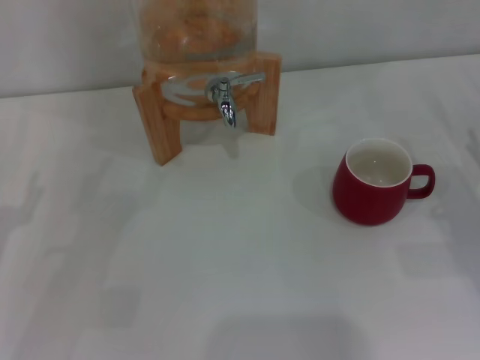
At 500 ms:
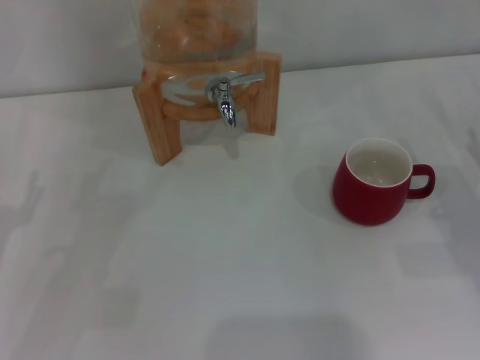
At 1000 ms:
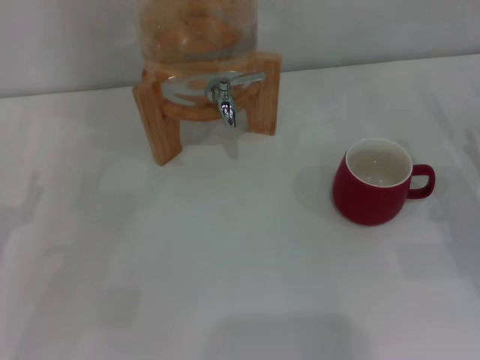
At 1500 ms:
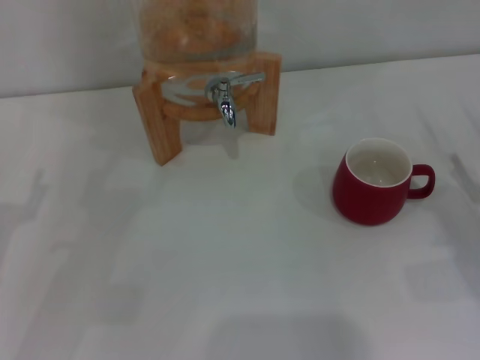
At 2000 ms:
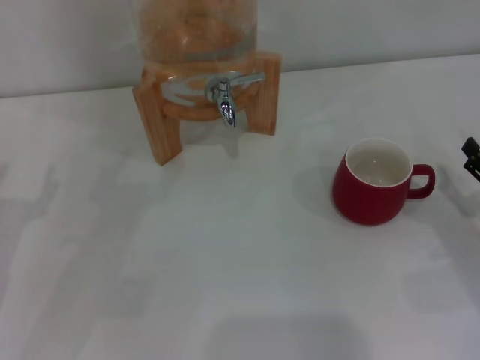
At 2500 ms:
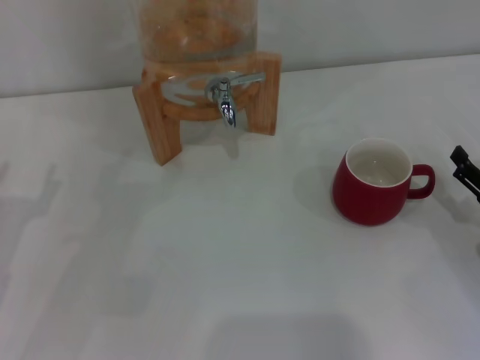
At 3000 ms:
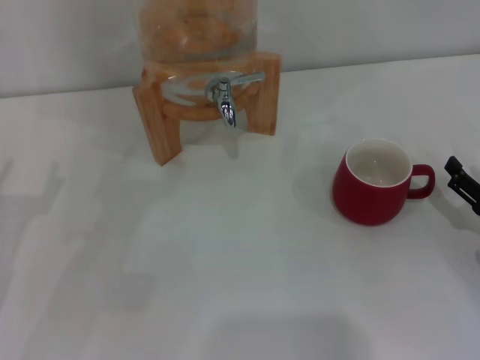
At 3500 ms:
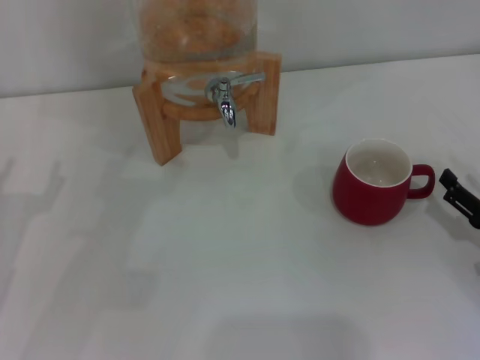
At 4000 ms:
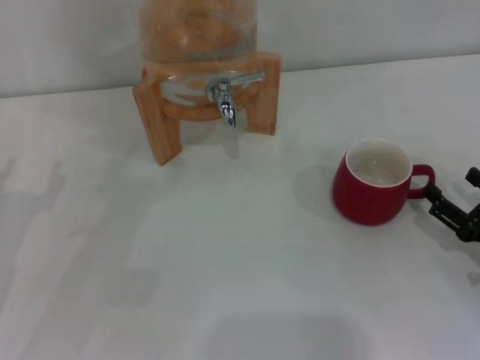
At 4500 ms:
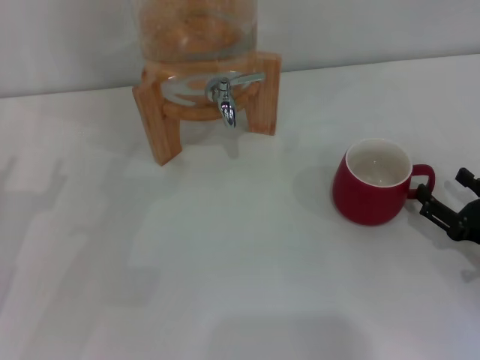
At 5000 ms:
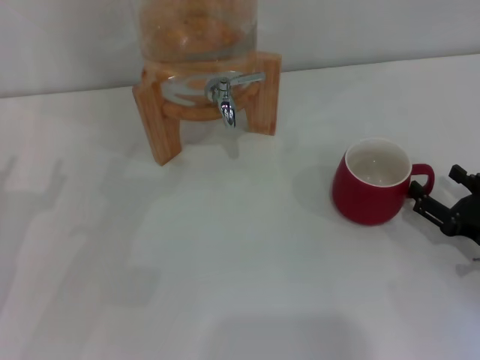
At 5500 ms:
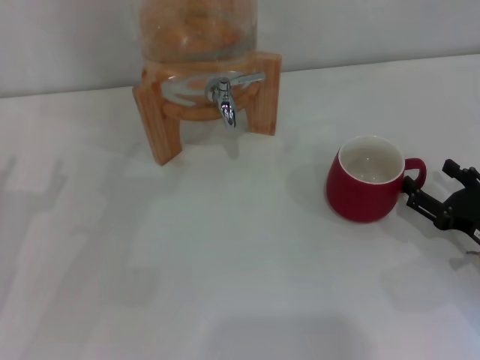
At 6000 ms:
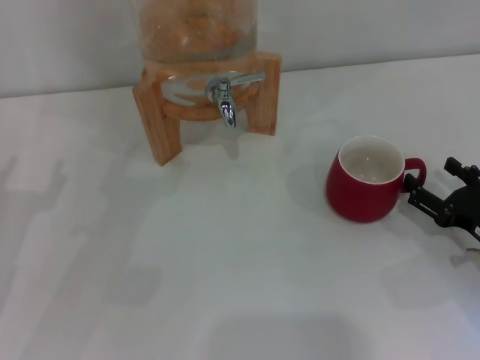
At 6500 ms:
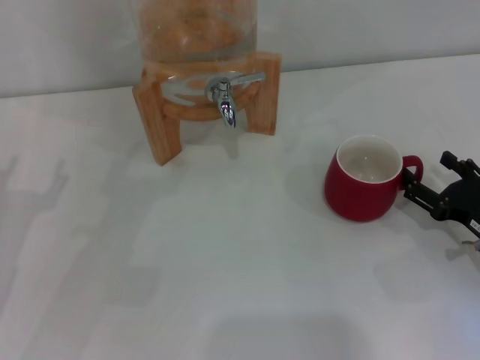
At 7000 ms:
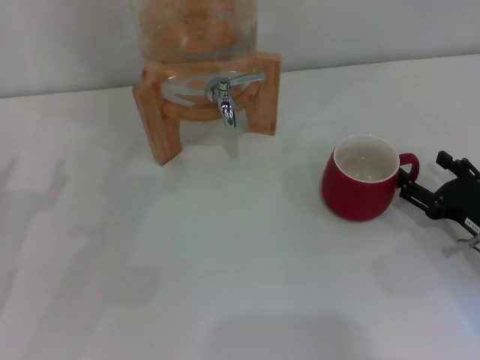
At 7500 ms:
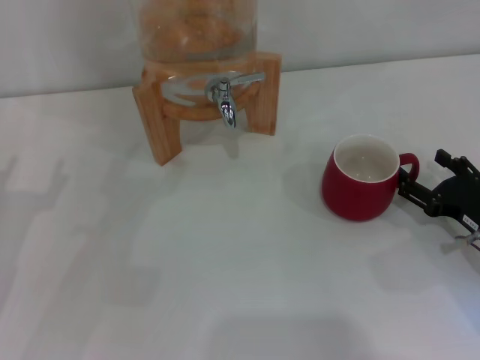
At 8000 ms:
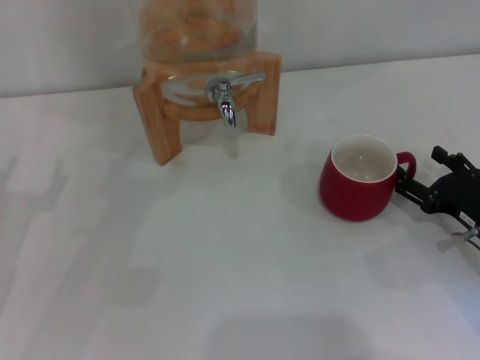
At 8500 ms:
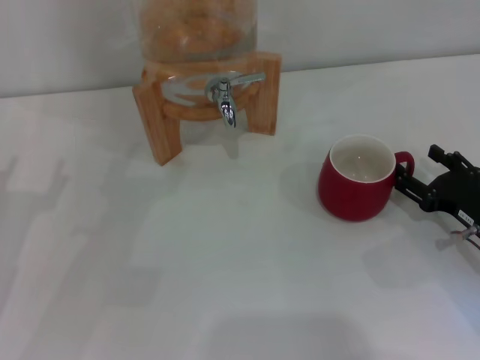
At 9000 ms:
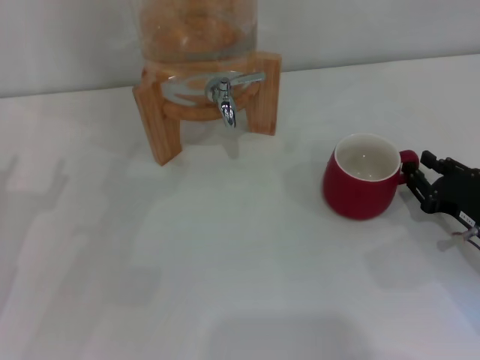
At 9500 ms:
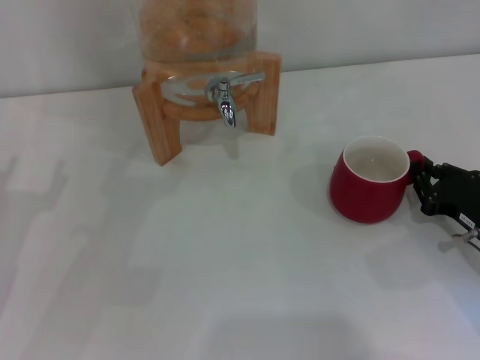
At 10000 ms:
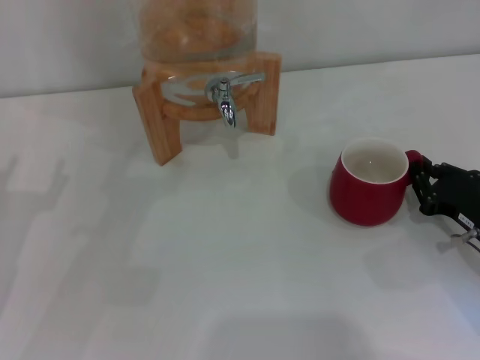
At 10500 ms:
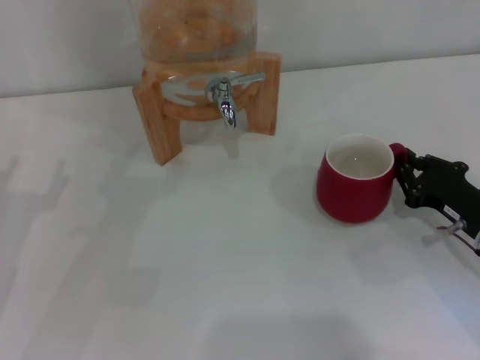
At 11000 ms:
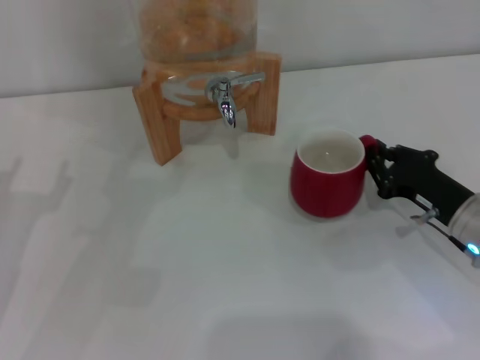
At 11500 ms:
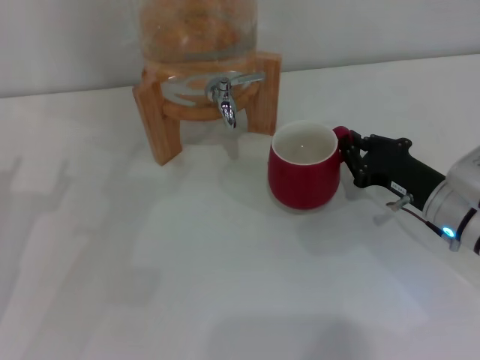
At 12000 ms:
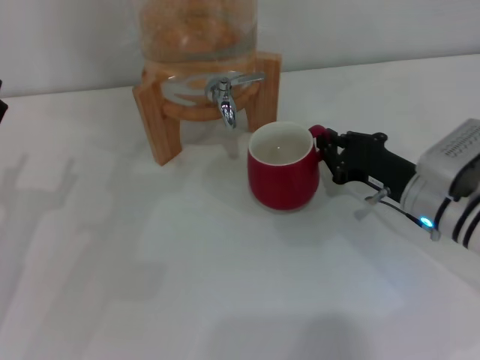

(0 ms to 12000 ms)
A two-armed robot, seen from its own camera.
Task of the whole recording: the right gripper pick up the red cup and place it horizontally under the faucet, the left gripper turn on the faucet to fill the cup, and then turn off the faucet.
2000 ms - 8000 ms: The grippers stay close to where they were, moving slightly.
8000 ms - 10000 ms: The right gripper closes.
10000 ms - 12000 ms: The right gripper is displaced to the left and forward by approximately 10 cm.

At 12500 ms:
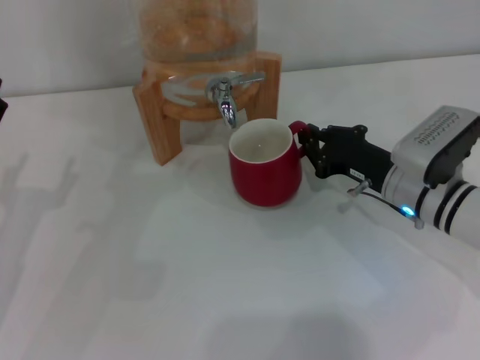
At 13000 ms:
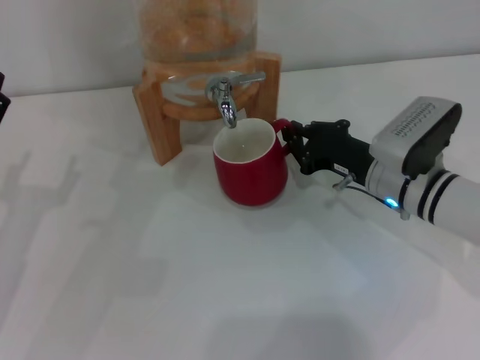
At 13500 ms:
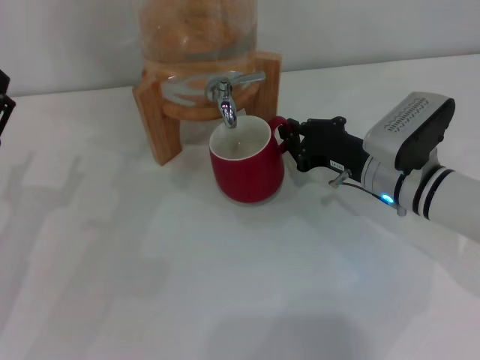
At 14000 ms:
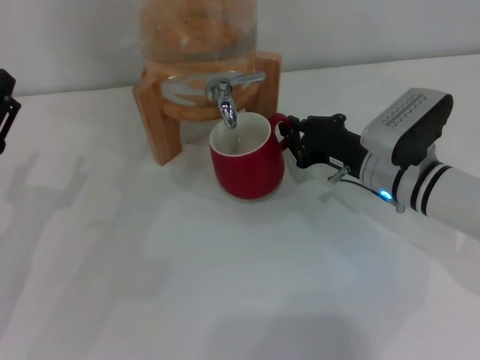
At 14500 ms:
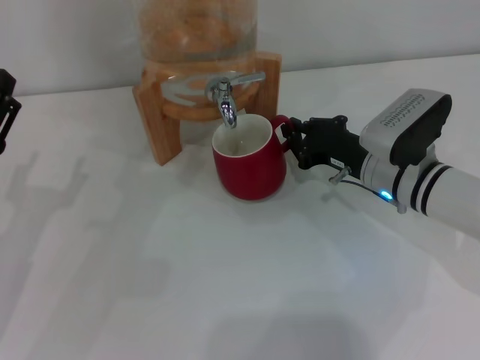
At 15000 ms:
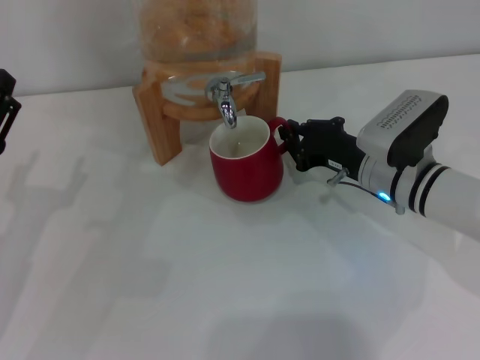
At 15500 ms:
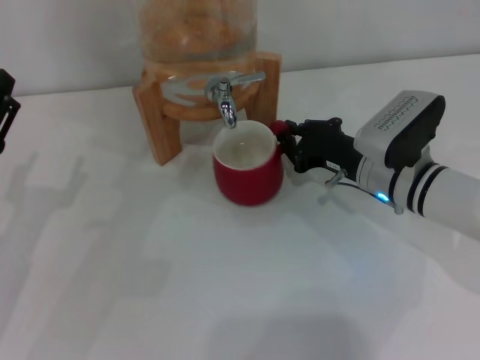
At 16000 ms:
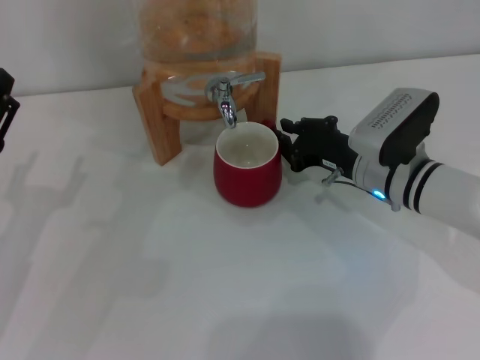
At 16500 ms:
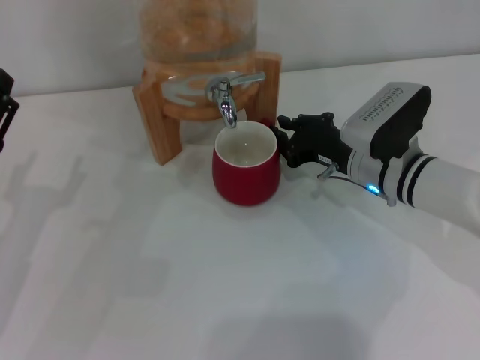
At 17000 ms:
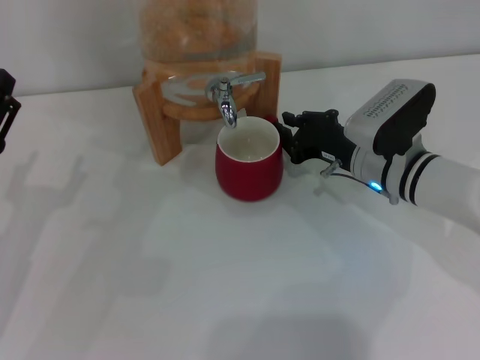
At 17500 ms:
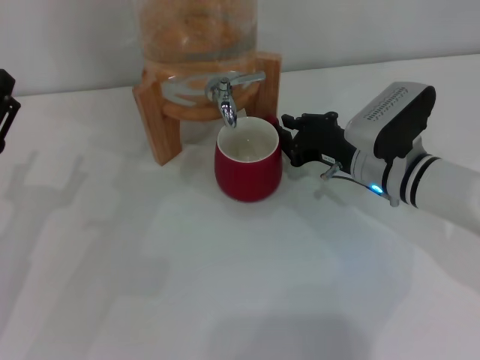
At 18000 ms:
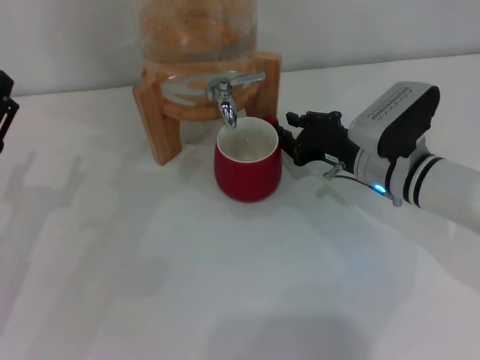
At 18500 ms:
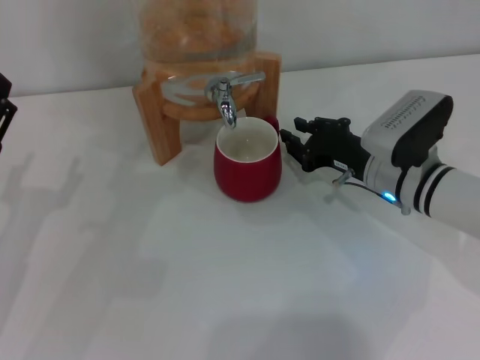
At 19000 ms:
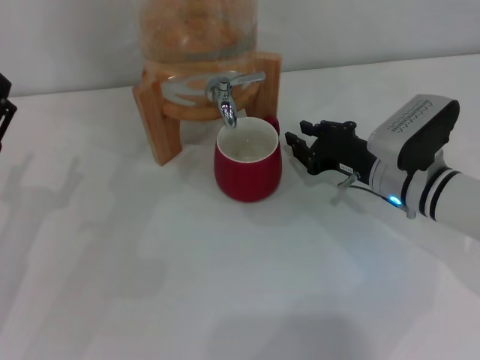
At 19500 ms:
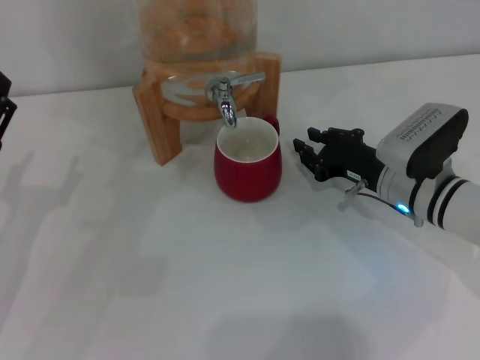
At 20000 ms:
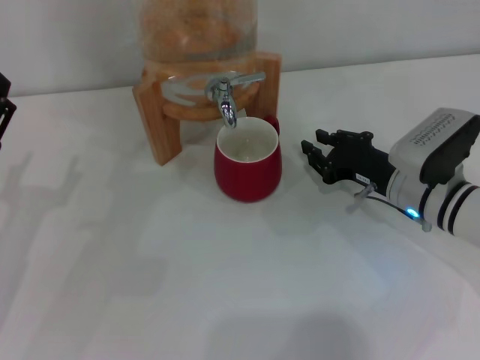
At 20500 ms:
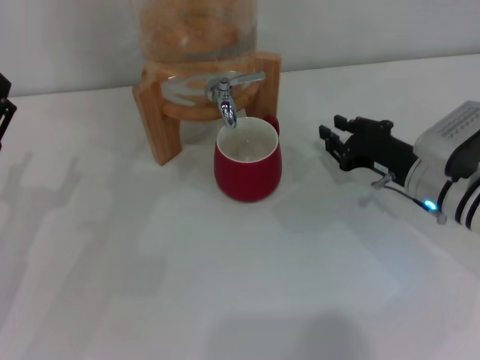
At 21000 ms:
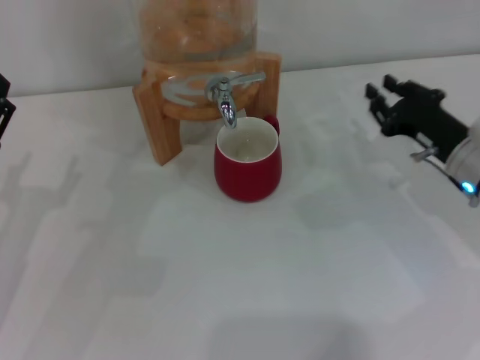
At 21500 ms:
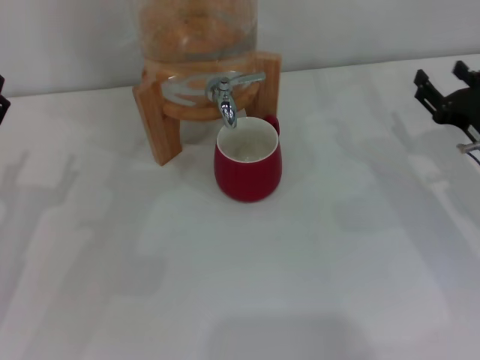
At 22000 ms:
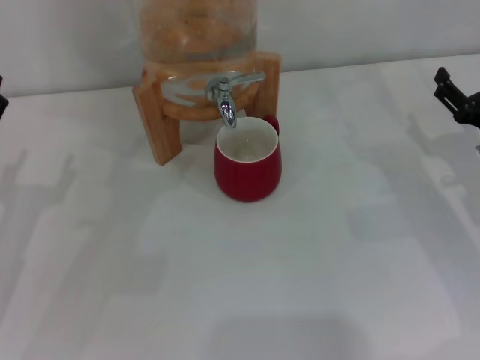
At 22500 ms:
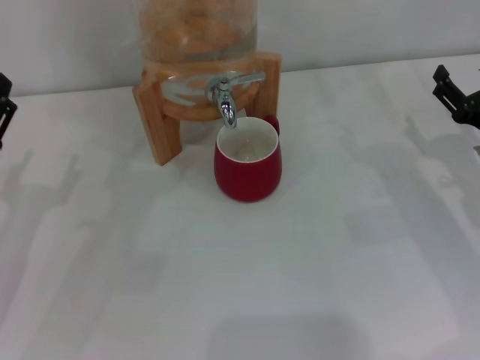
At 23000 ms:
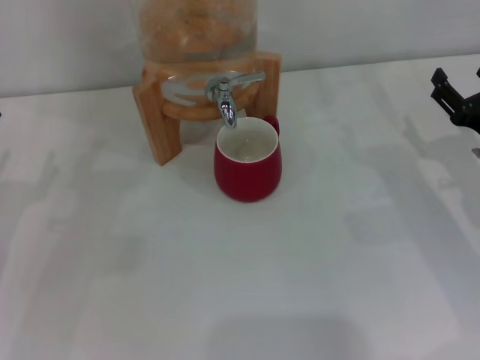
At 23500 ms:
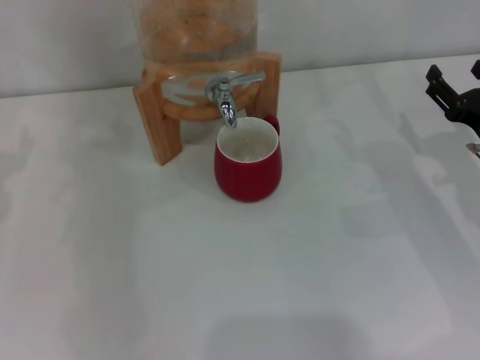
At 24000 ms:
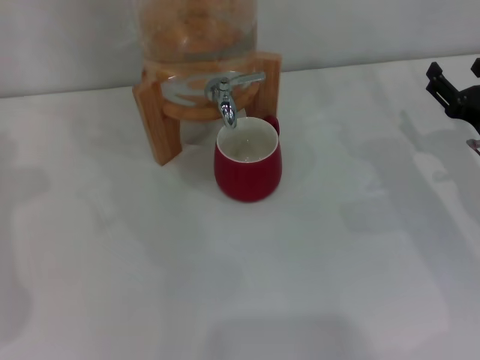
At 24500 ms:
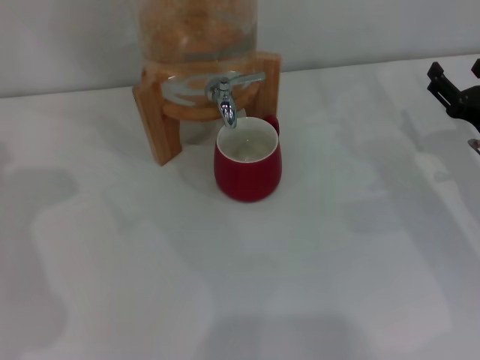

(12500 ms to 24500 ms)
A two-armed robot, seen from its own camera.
Task of the whole recording: the right gripper pick up the red cup and place it horizontally under the faucet, the left gripper turn on the faucet to fill the cup, and then turn off the faucet.
Step, 12500 ms - 20000 ms: Move the cup beneath the water dispenser nozzle with the right gripper.
12500 ms - 20500 ms: There are only small adjustments of the grippers.
20500 ms - 22500 ms: The right gripper is displaced to the right by some 10 cm, and opens its fingers.

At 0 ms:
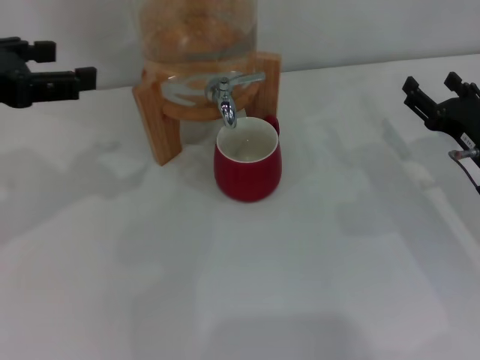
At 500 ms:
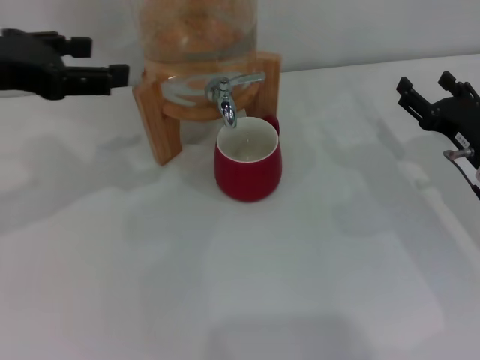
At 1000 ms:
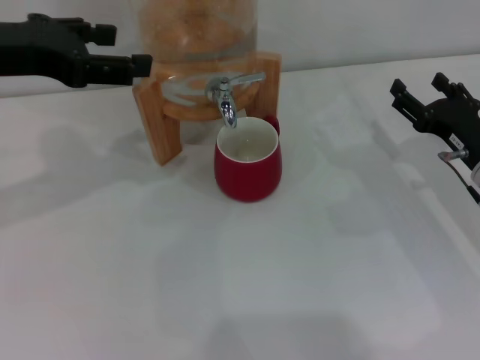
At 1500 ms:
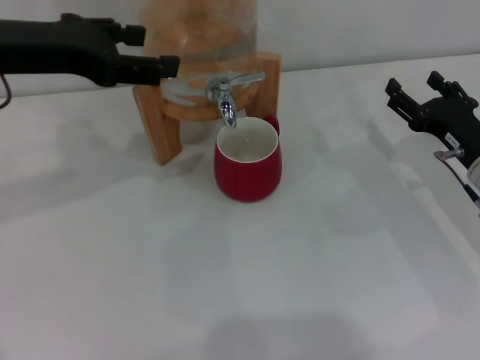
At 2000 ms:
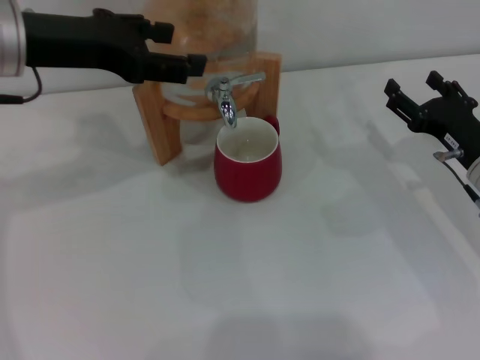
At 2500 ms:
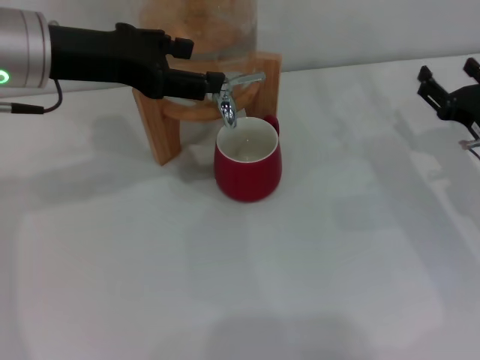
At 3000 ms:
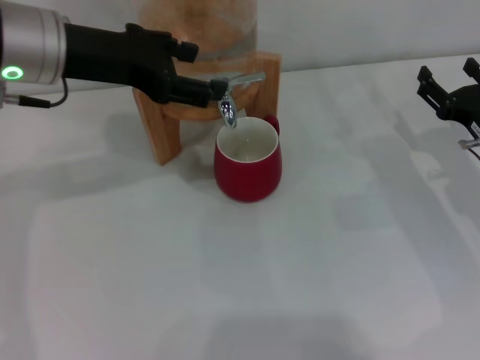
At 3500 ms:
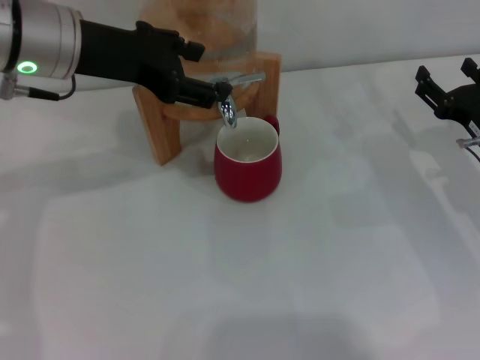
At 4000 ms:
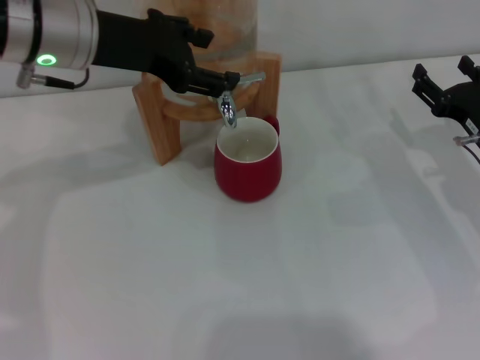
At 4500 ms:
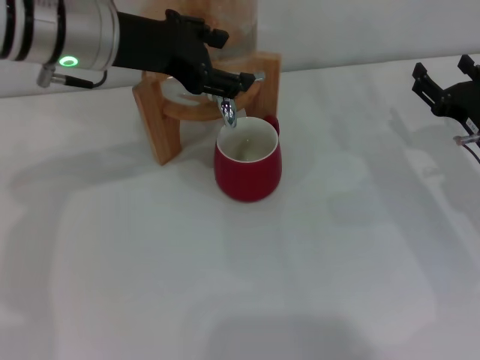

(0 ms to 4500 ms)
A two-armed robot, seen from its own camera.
Task of the whole recording: the right gripper pick up the red cup and place it horizontally under the faucet, the left gripper turn on the faucet to fill the cup, and then turn off the faucet.
0 ms - 2000 ms: The left gripper shifts about 10 cm to the right and forward.
2000 ms - 4500 ms: The left gripper heads to the right, covering about 5 cm.
